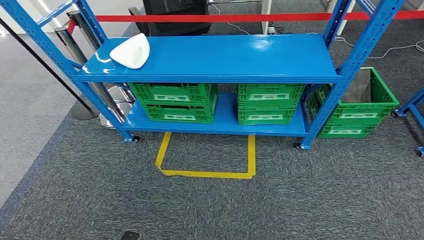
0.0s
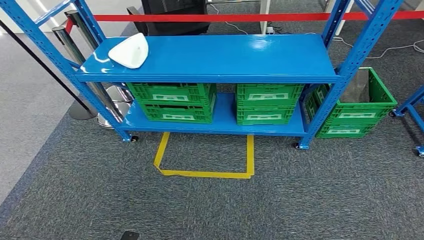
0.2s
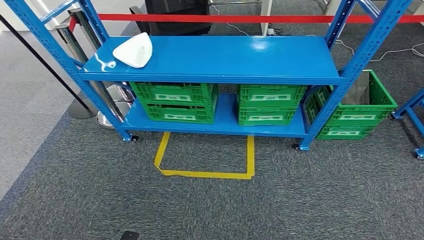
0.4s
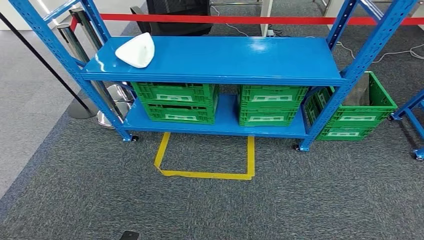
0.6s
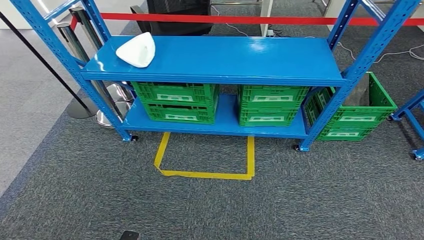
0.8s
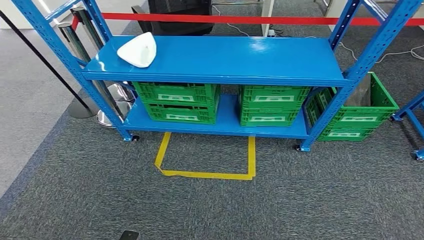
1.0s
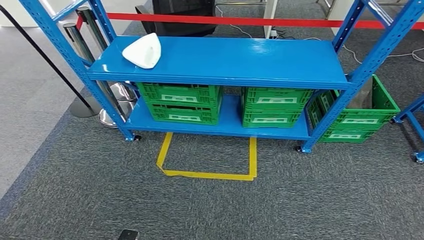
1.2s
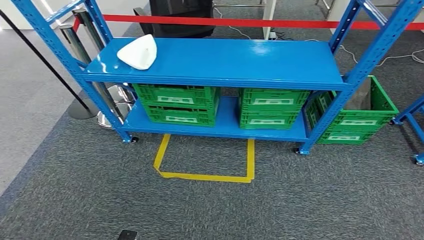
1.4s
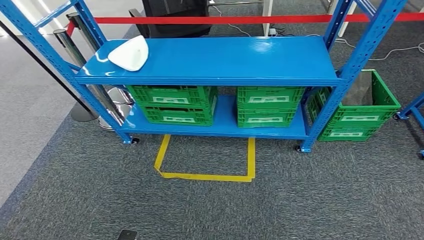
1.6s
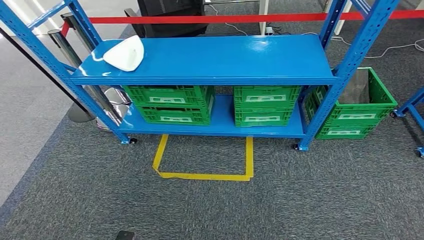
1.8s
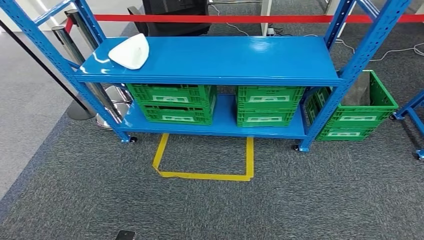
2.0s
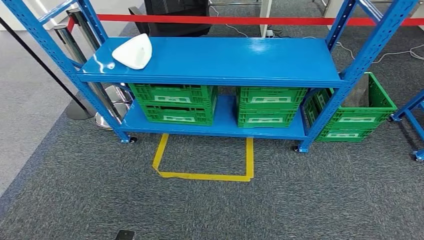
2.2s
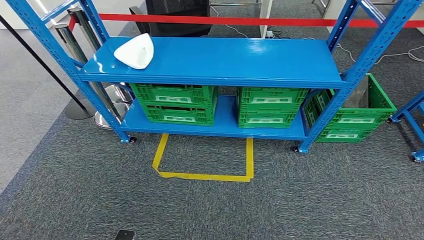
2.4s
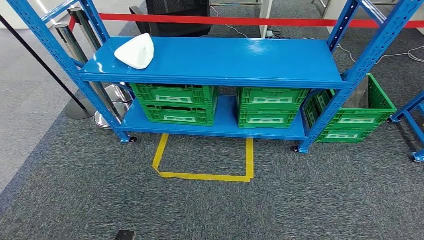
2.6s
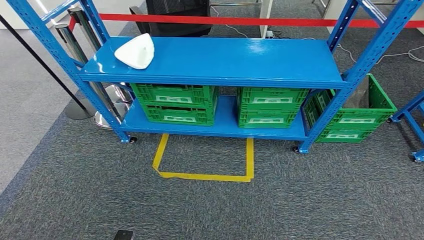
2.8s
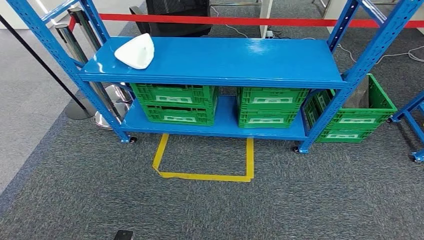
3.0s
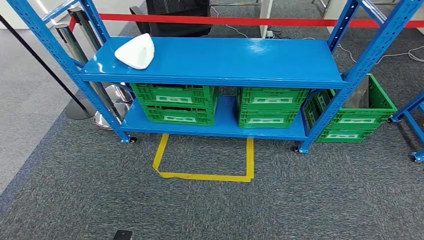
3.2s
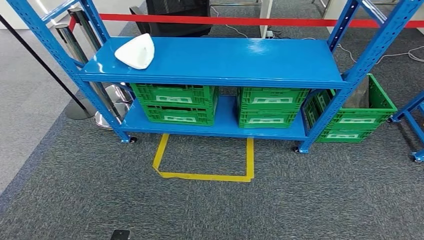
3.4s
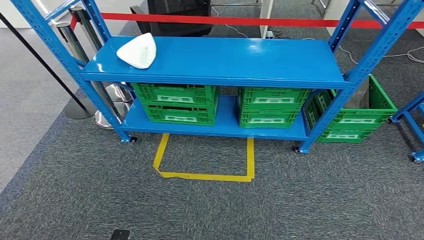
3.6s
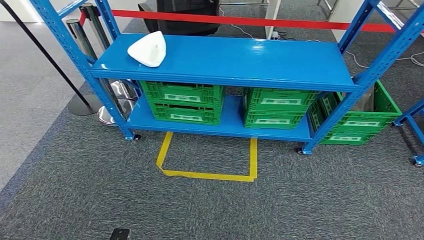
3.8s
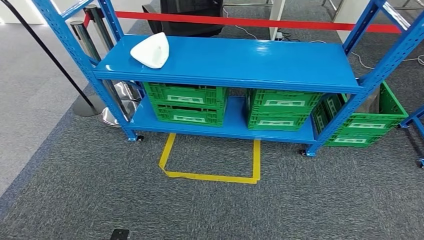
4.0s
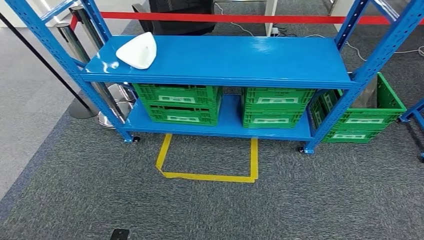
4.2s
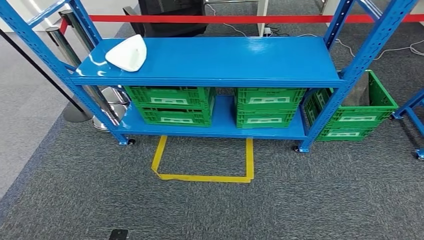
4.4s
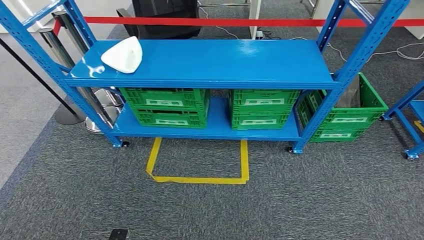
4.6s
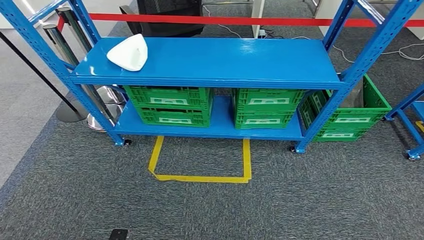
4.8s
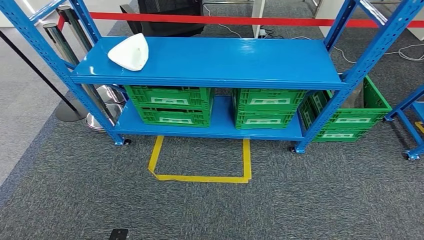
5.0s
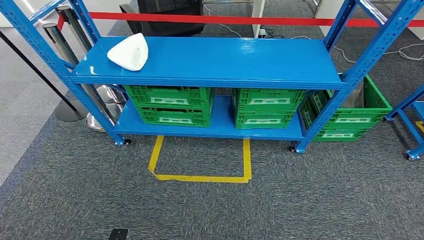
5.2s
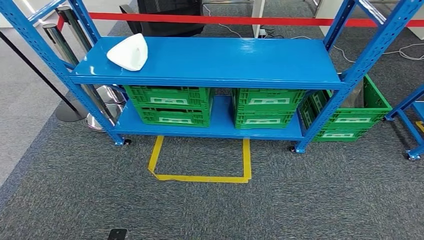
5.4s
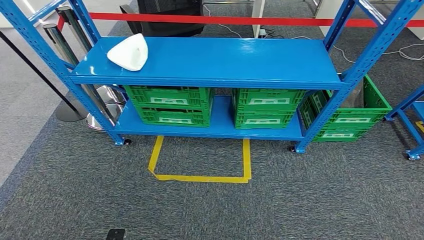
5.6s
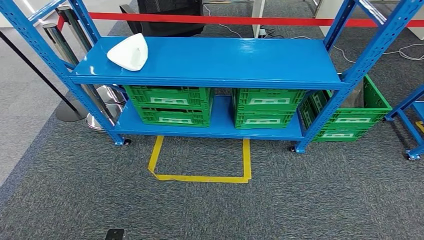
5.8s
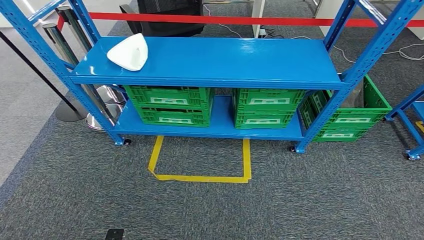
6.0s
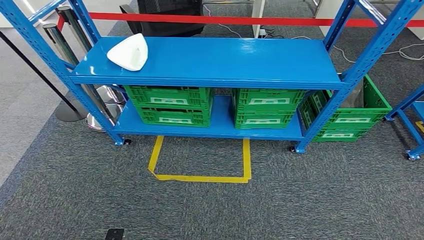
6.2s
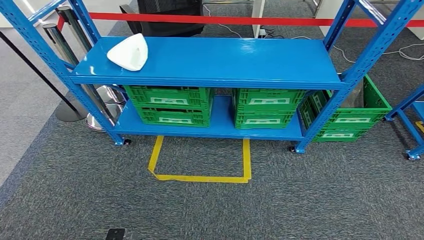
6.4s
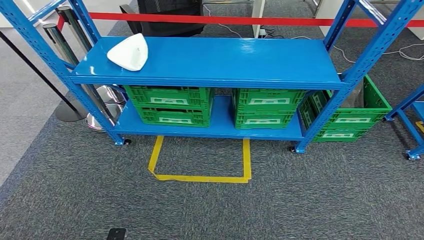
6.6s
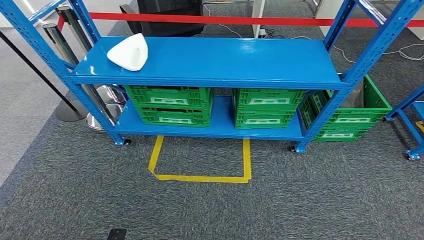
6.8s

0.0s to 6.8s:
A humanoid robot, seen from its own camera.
Step, 0.0s to 6.8s: Return to the initial position at the workbench.
0.0s to 1.4s: Both hands stay about where they are.
1.4s to 2.8s: Both hands stay put.
